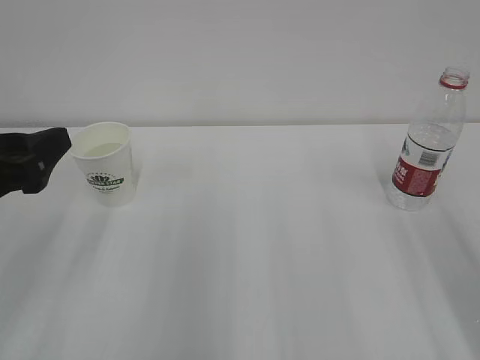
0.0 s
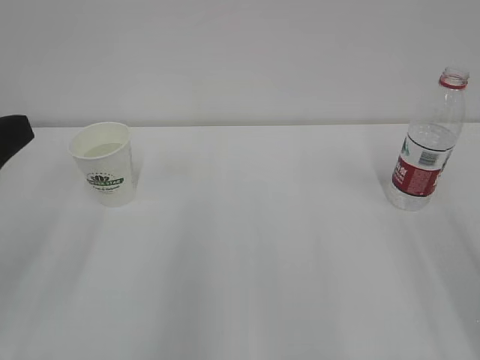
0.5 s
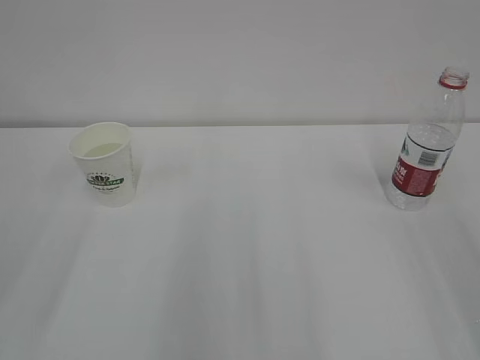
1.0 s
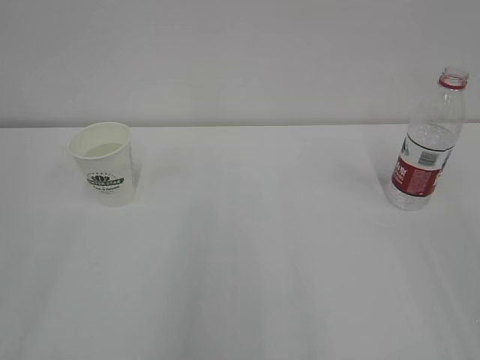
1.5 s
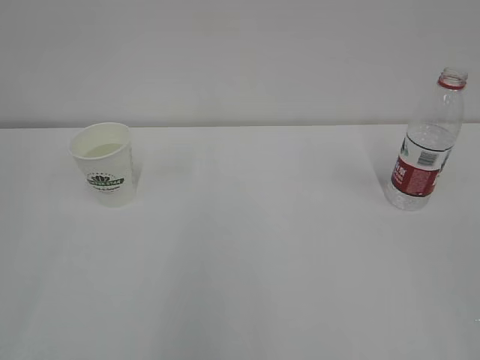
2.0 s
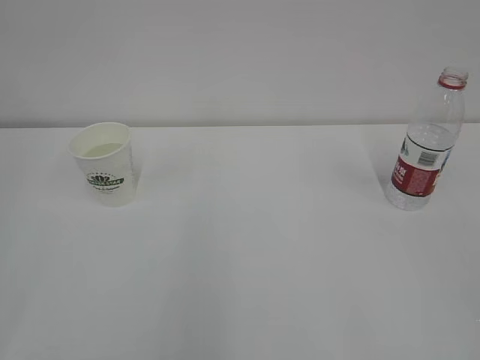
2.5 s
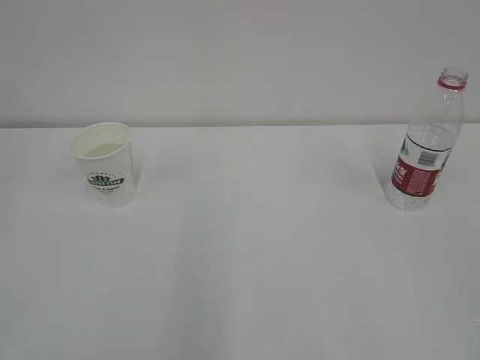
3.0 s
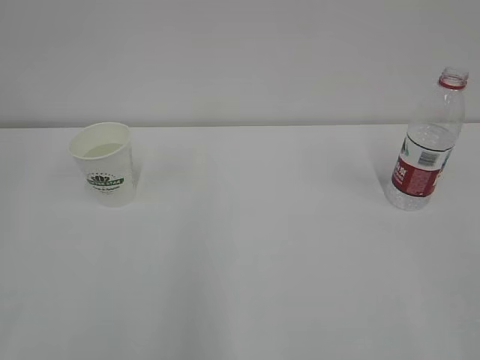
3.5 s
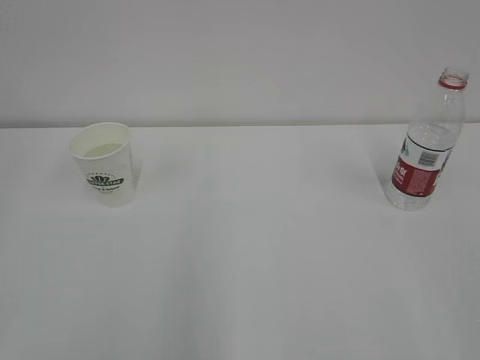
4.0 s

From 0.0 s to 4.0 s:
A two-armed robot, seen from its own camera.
From 0.0 s to 2.0 s: The left gripper shifts about 20 cm backward and upward.
